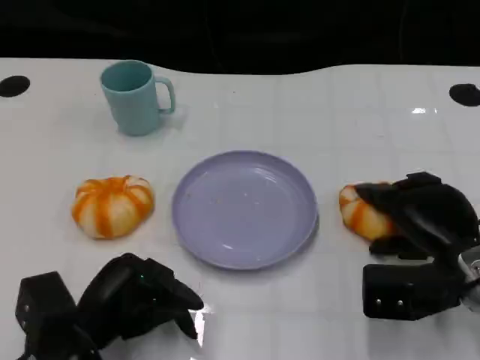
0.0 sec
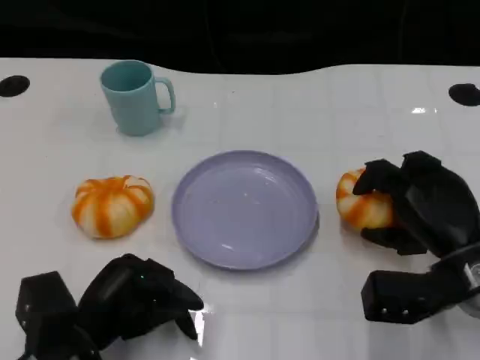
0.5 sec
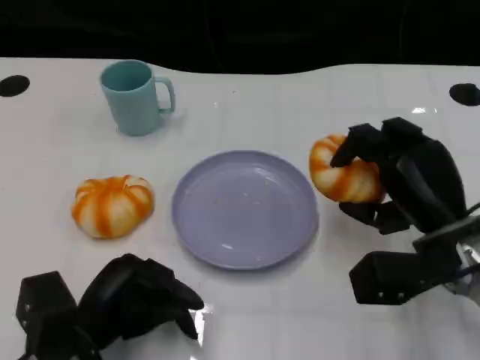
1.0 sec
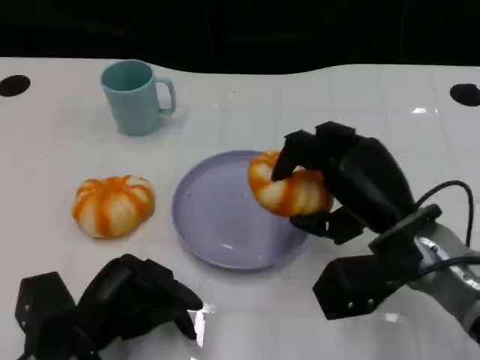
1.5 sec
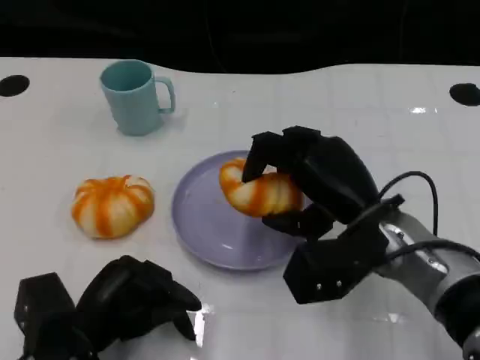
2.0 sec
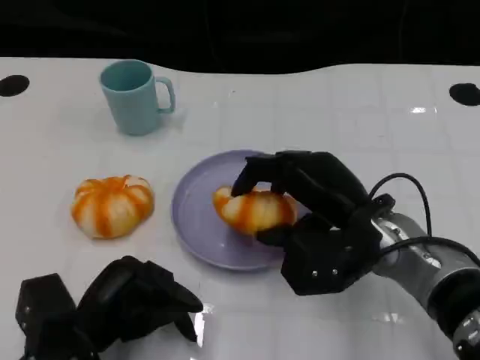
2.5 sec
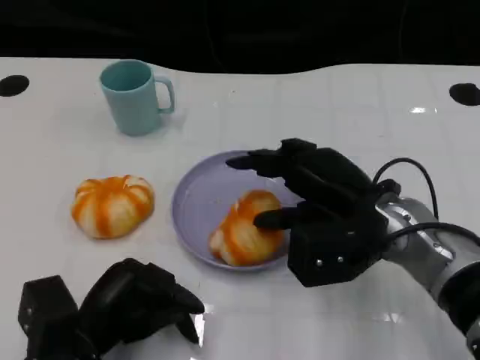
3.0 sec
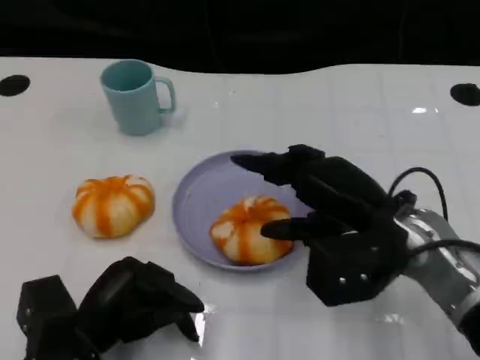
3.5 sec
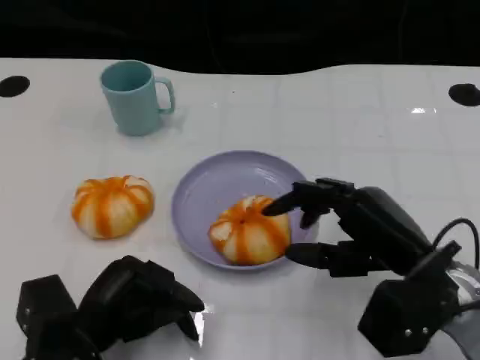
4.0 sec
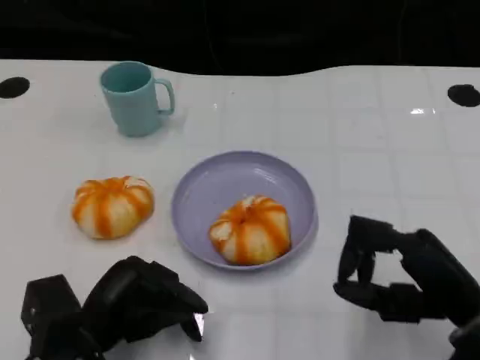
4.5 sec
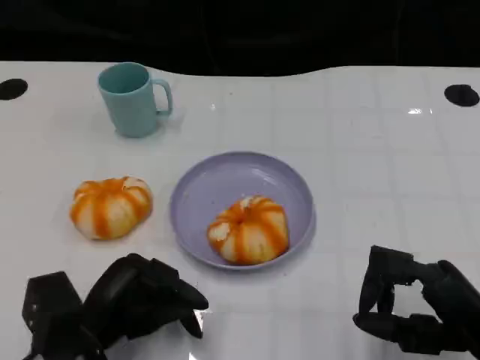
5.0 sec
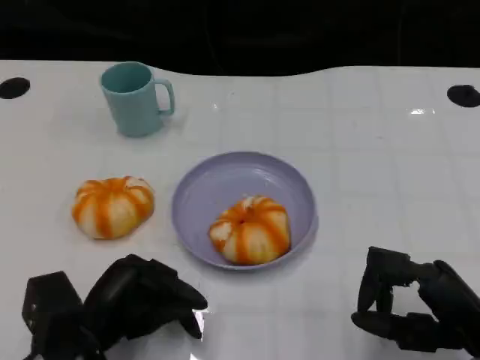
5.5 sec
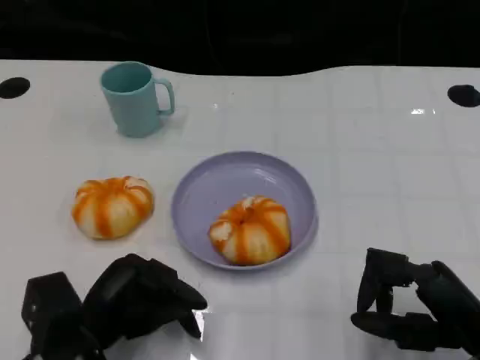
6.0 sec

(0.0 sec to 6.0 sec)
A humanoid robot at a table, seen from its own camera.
Task of the whole recording: Grasp the bread from the table and place it into the plate.
0.0 sec - 2.0 sec: The right hand is displaced to the left and upward by roughly 10 cm.
2.0 sec - 4.0 sec: The right hand moves to the right and backward, approximately 10 cm.
4.0 sec - 6.0 sec: The right hand travels backward and to the right by about 10 cm.

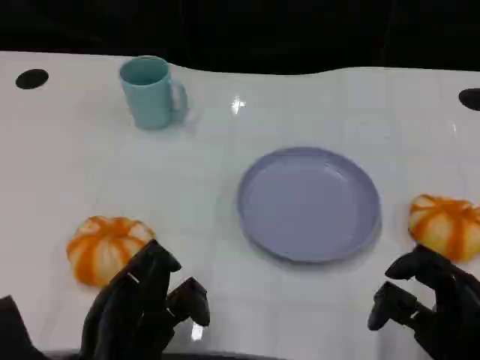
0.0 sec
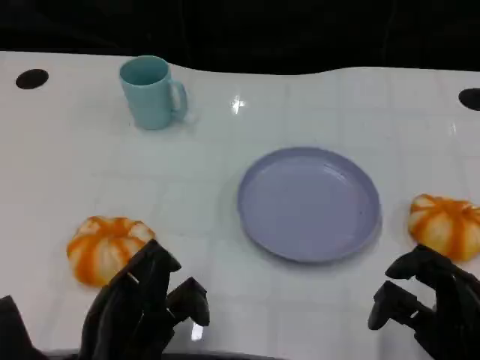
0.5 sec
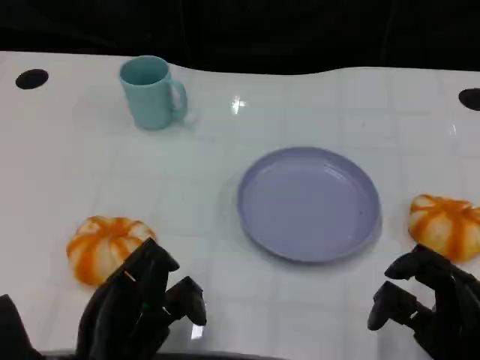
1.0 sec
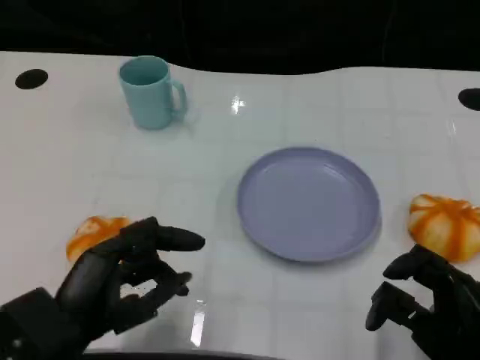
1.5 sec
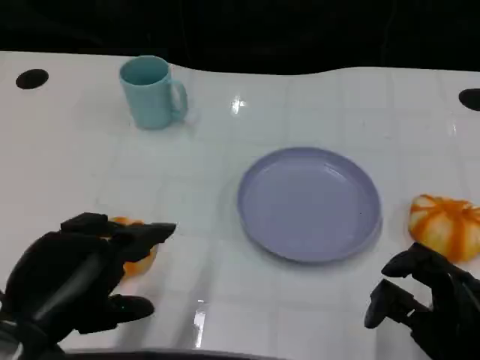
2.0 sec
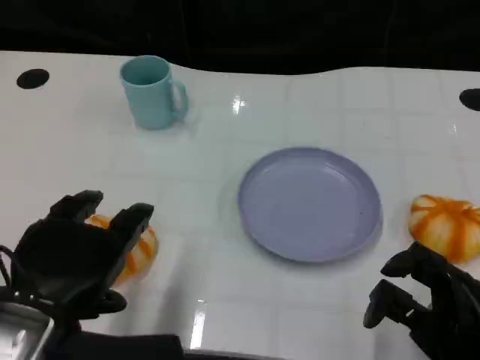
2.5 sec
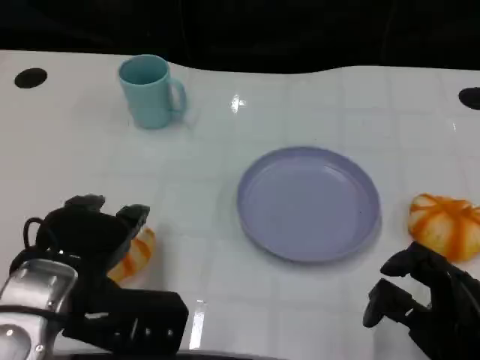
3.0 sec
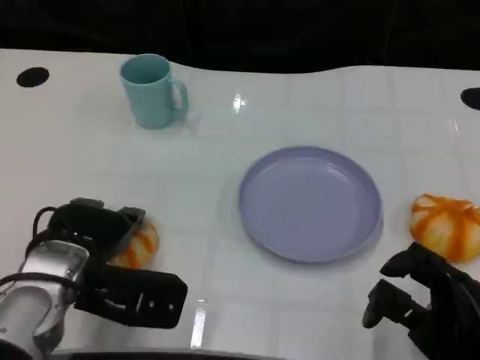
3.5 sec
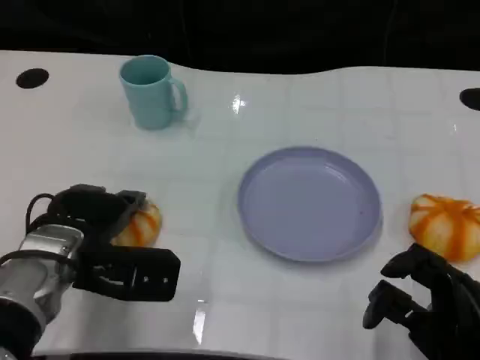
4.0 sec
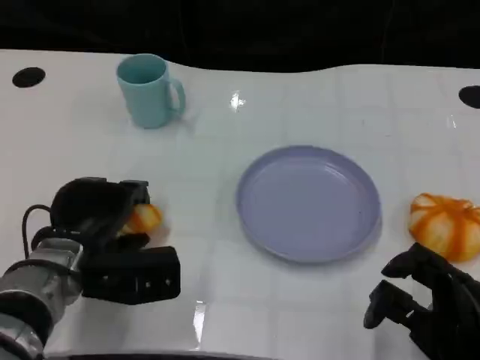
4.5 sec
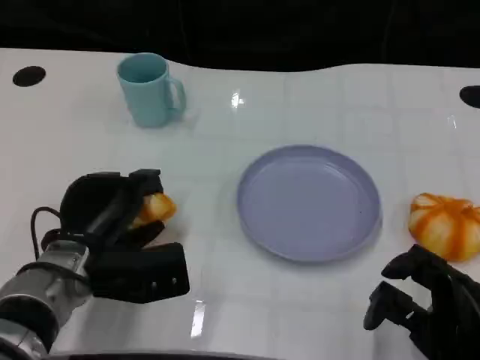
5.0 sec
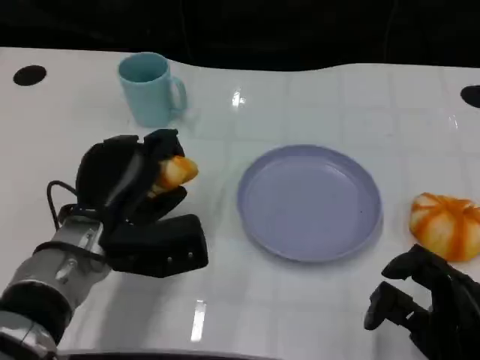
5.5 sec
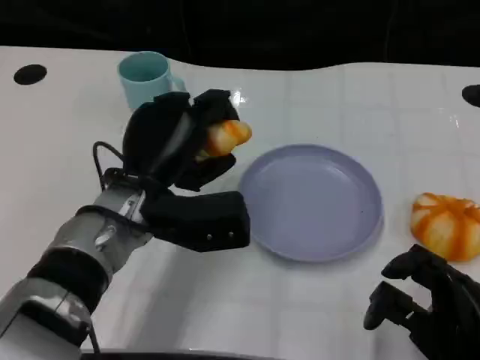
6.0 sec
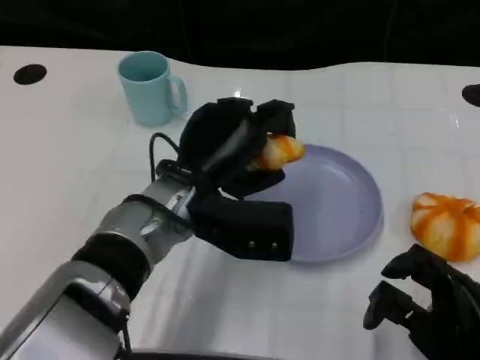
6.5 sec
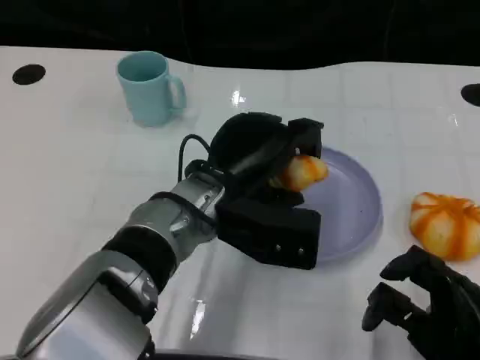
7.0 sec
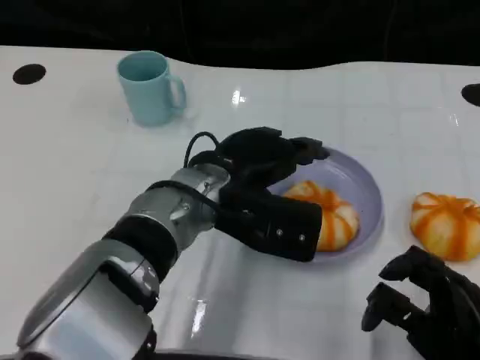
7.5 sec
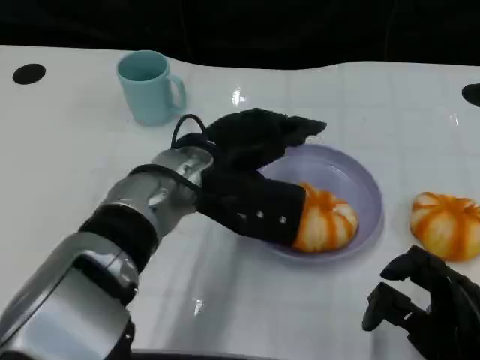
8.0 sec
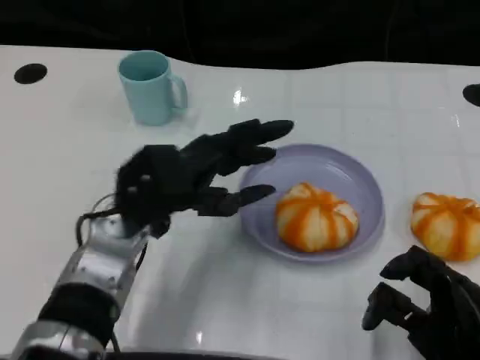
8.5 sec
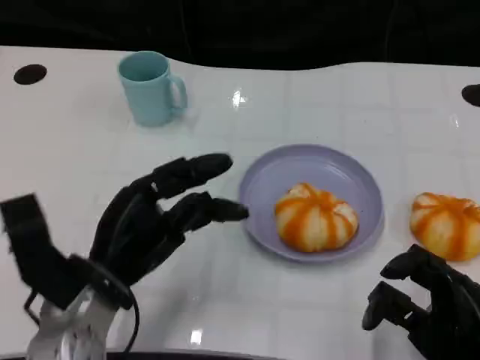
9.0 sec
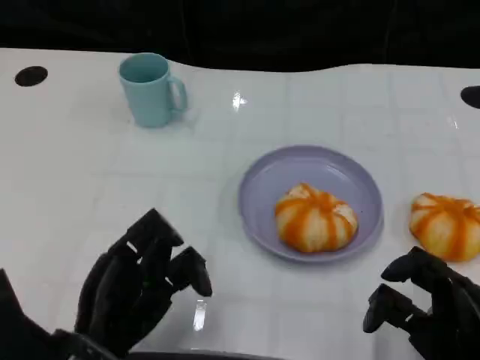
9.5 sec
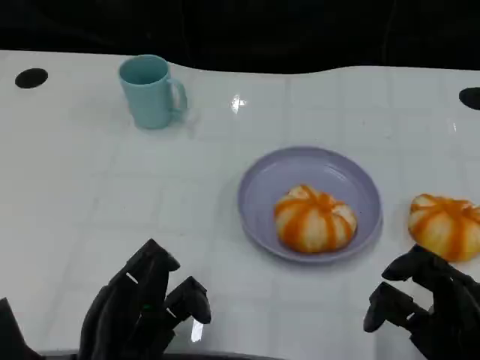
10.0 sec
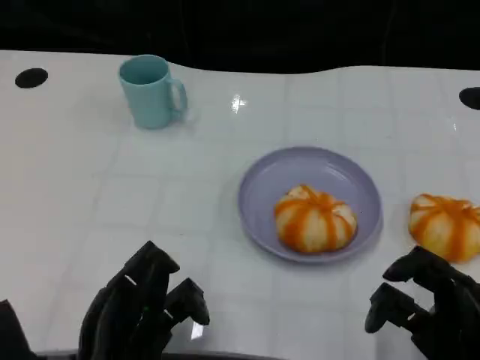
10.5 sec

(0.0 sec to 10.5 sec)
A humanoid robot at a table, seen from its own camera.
Task of the whole recording: Grasp the bread from the table and place it into the plate.
0.0 sec - 2.0 sec: The left hand heads upward, covering approximately 10 cm.
2.0 sec - 4.0 sec: The left hand moves forward and downward, roughly 15 cm.
4.0 sec - 6.5 sec: The left hand travels to the right by approximately 10 cm.
6.5 sec - 8.5 sec: The left hand shifts about 5 cm to the left.
8.5 sec - 10.5 sec: The left hand goes some 15 cm backward and downward.
